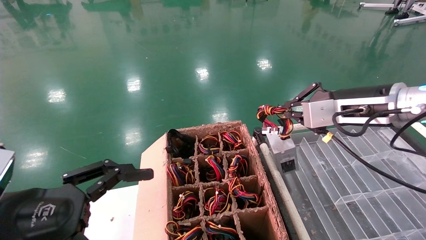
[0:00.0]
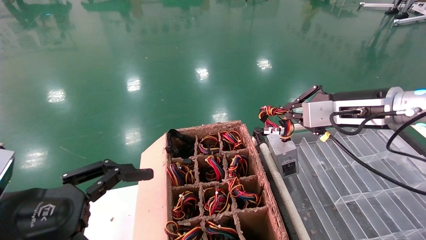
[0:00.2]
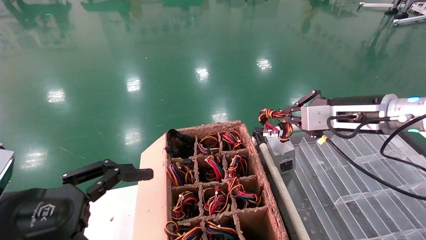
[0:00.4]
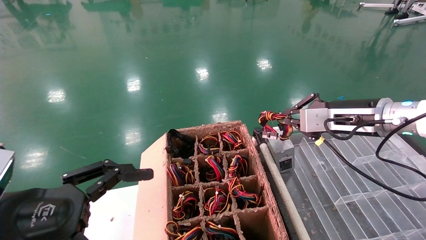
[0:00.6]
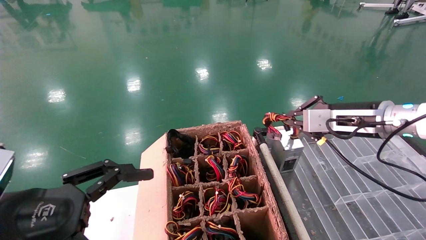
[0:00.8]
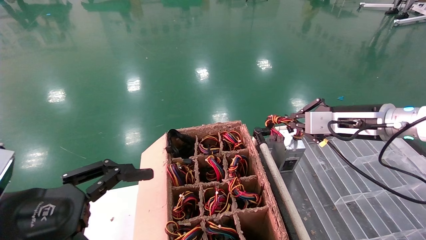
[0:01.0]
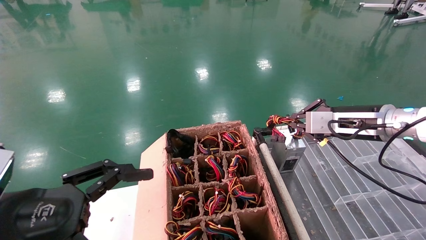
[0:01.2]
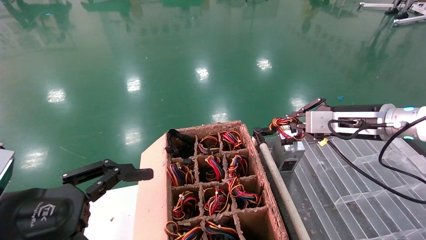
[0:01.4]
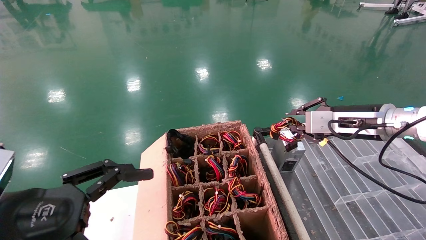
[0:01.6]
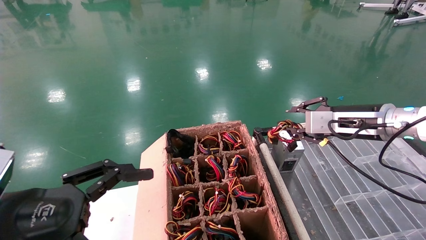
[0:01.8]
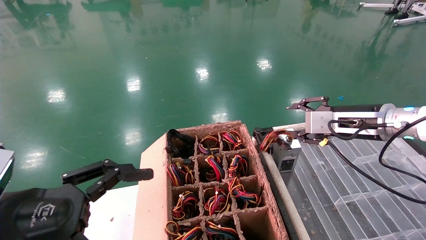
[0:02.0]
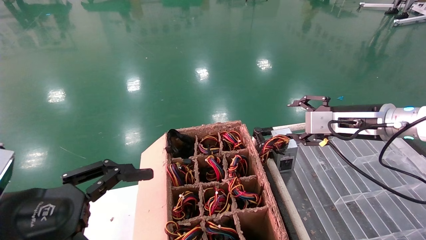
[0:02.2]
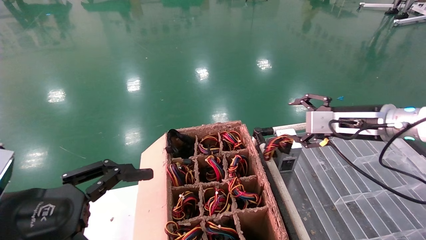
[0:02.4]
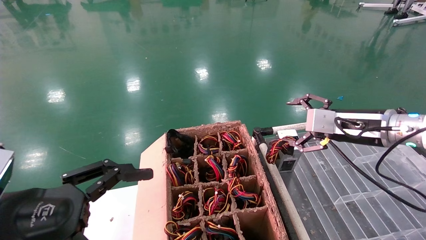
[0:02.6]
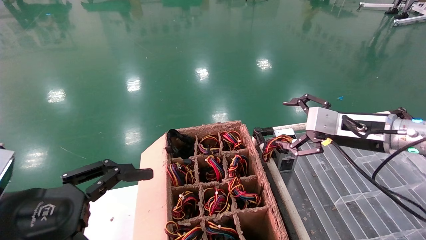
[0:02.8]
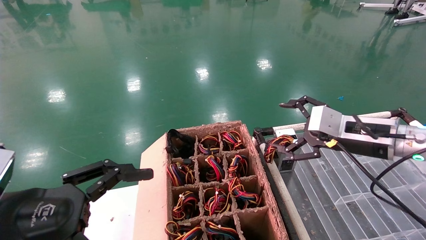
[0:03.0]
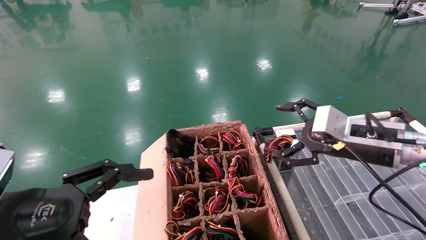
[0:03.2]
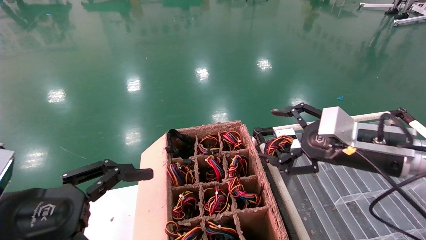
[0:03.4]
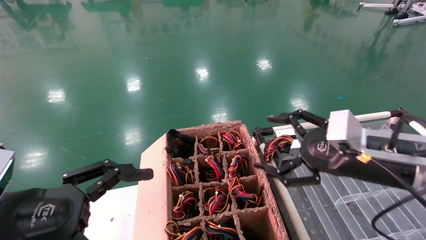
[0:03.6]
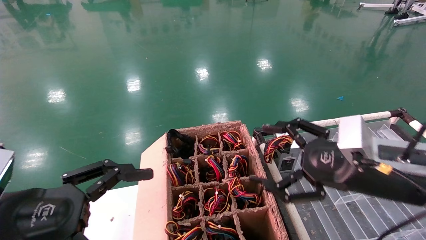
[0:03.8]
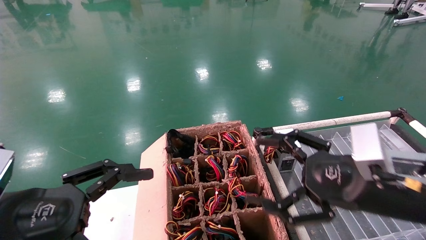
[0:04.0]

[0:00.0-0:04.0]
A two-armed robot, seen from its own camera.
0:00.0 to 0:01.4: The right gripper heads forward, covering some 5 cm.
0:01.4 to 0:02.6: The right gripper opens its fingers.
0:02.6 to 0:04.0: The right gripper heads backward, covering some 15 cm.
